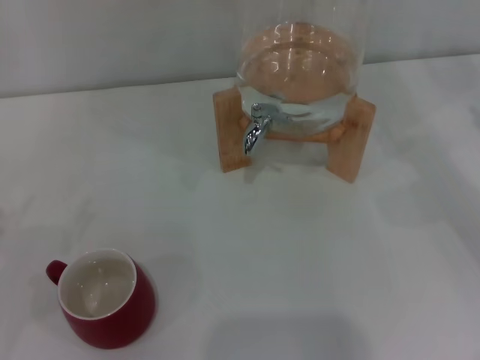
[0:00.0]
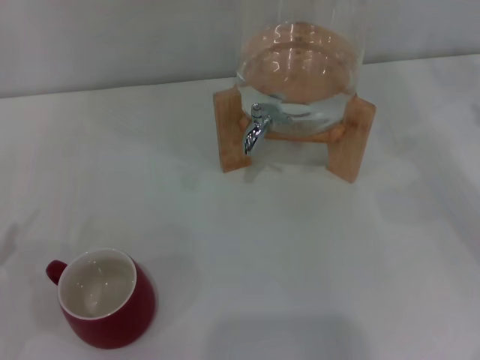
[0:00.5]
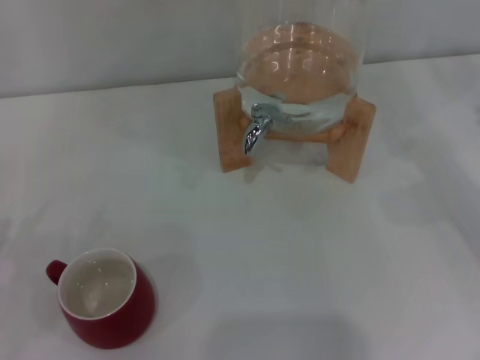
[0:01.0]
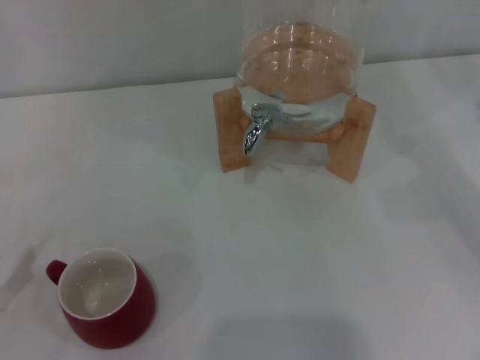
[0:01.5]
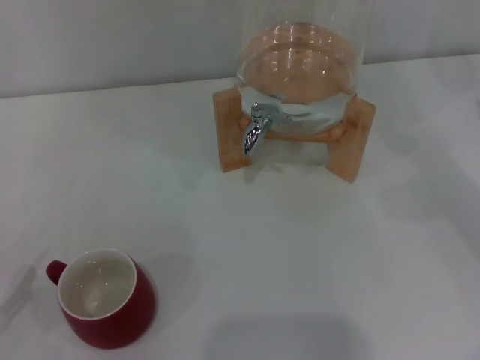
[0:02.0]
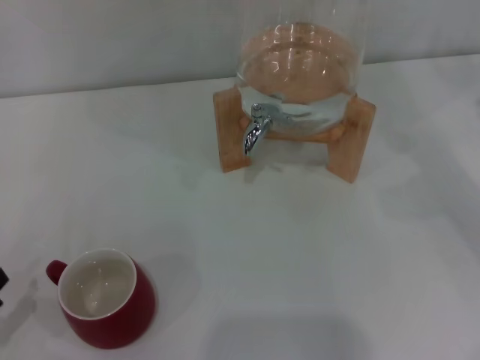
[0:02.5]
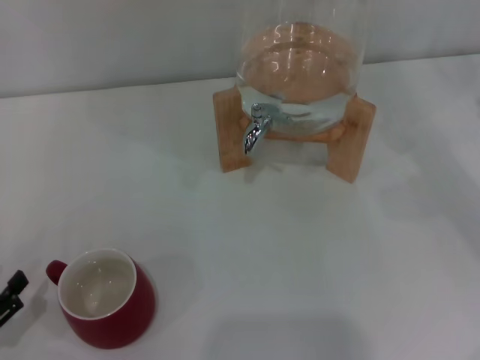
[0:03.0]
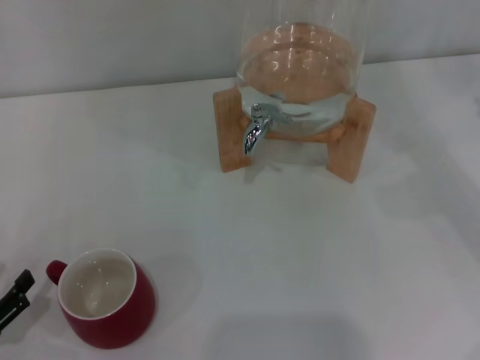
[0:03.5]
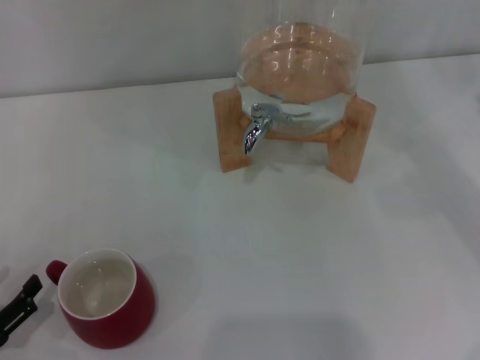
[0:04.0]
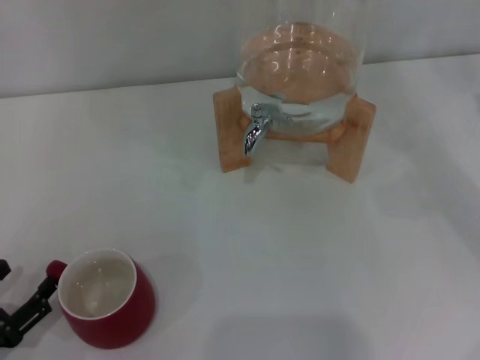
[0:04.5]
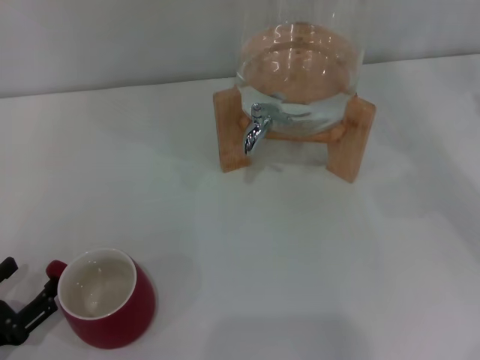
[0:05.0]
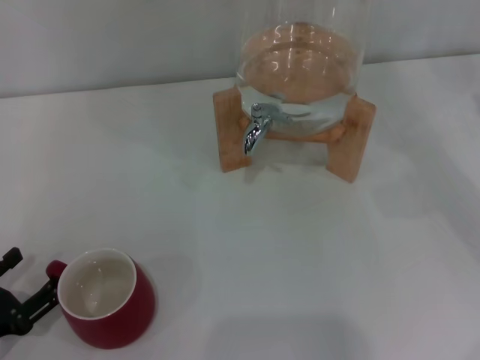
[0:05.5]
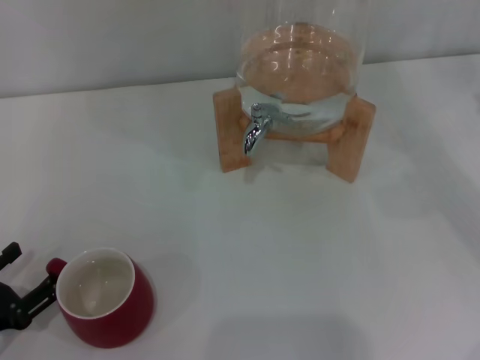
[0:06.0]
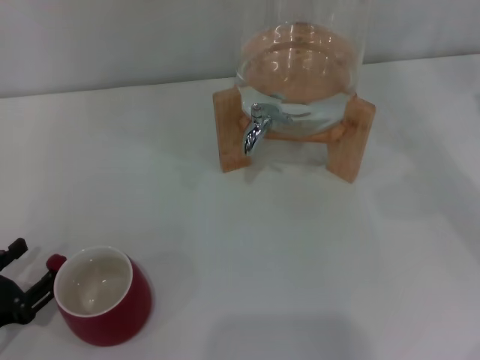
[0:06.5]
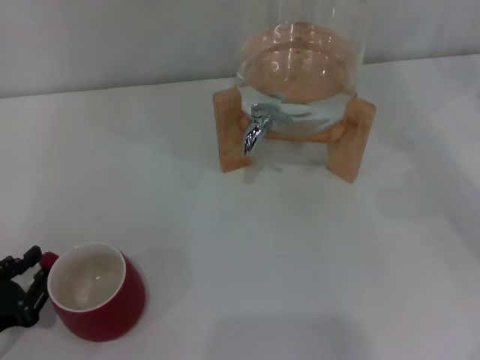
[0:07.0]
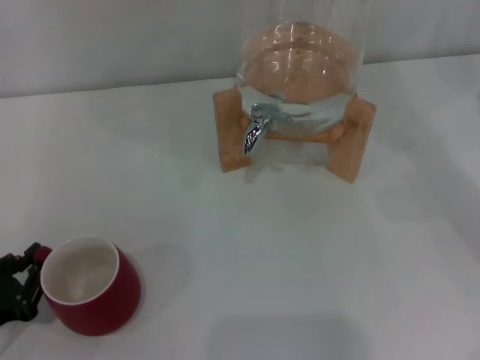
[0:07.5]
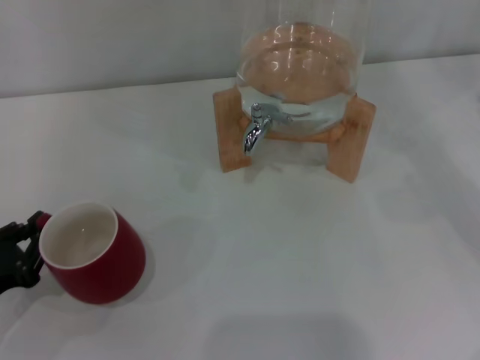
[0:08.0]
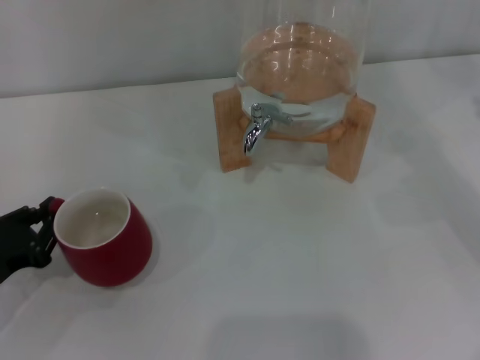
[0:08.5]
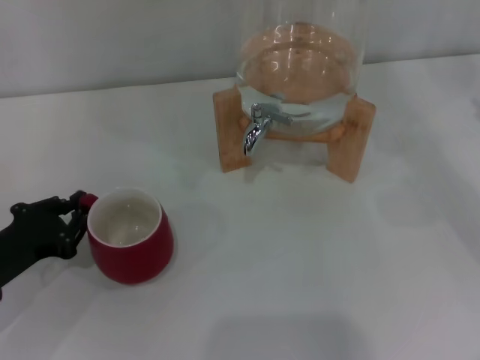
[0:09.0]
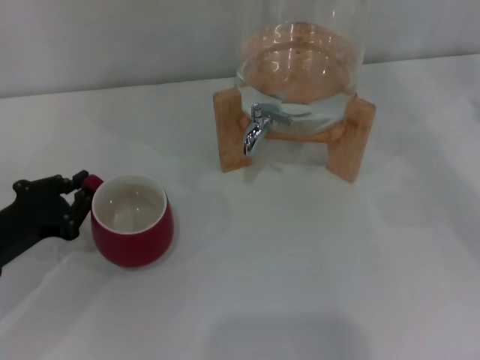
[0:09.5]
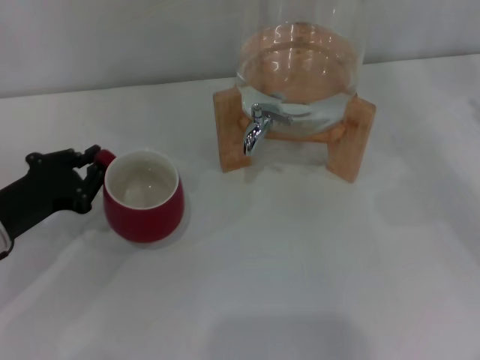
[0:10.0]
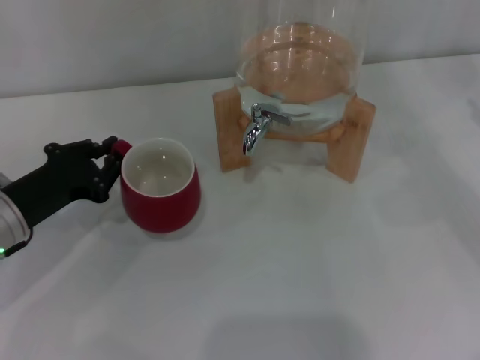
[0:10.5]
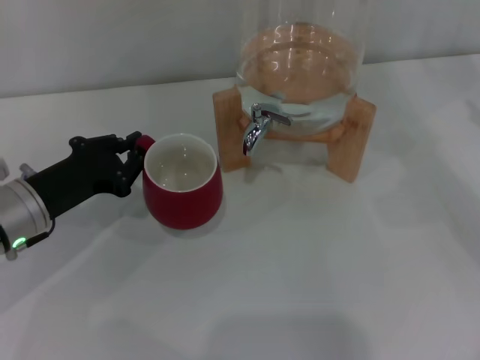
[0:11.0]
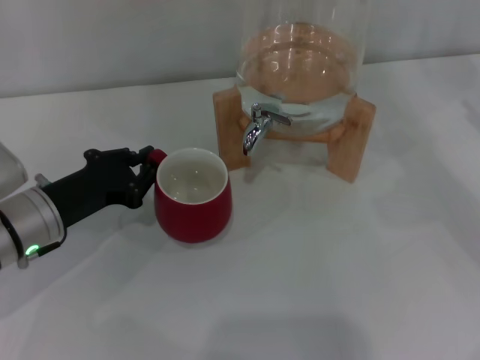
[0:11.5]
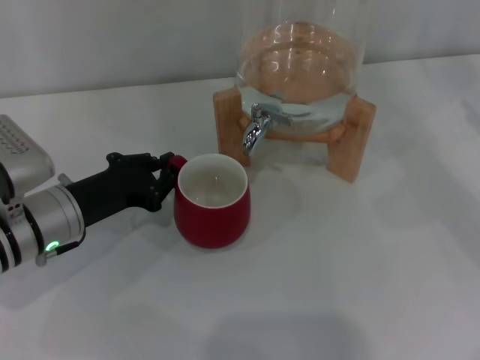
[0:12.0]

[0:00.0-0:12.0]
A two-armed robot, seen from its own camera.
Task of the whole recording: the left gripper pick up the red cup and place it horizontally under the faucet, the right gripper turn on the faucet to fill the cup, and then turn off the faucet.
0:02.0 to 0:06.0: There are only small adjustments of the grippers.
0:06.0 to 0:08.0: The left gripper closes its fingers.
0:08.0 to 0:10.0: The left gripper heads forward and to the right, covering some 10 cm.
0:10.0 to 0:12.0: The left gripper shifts some 5 cm to the right.

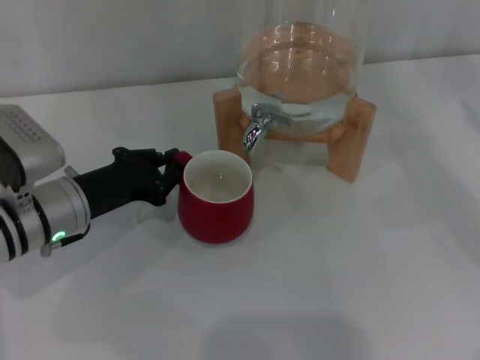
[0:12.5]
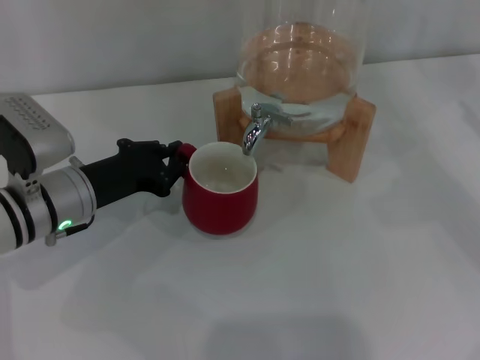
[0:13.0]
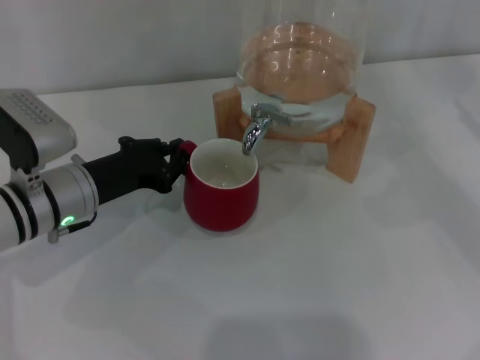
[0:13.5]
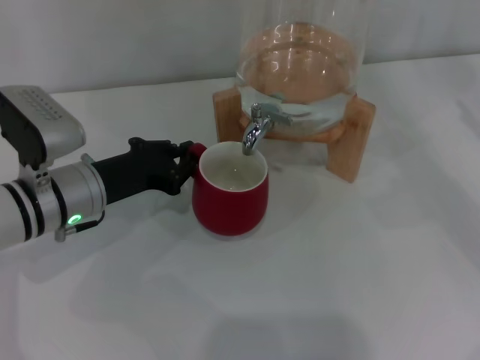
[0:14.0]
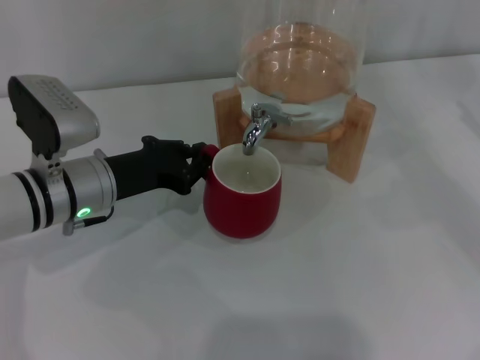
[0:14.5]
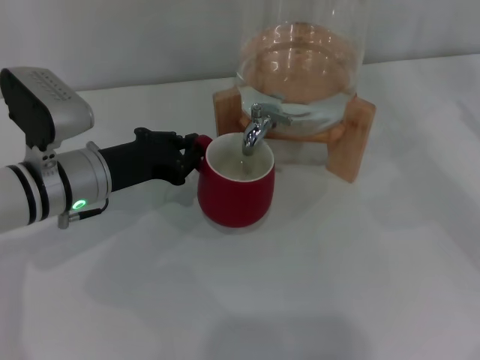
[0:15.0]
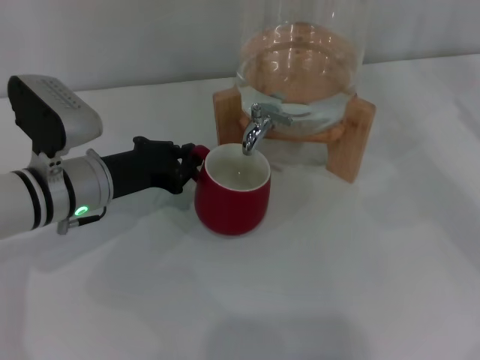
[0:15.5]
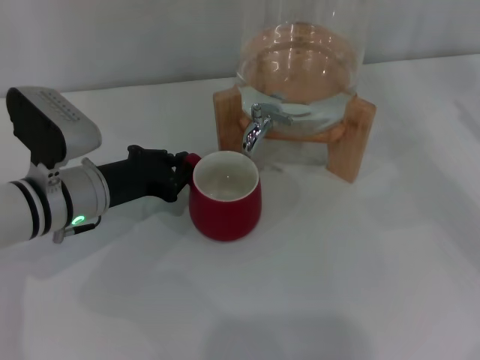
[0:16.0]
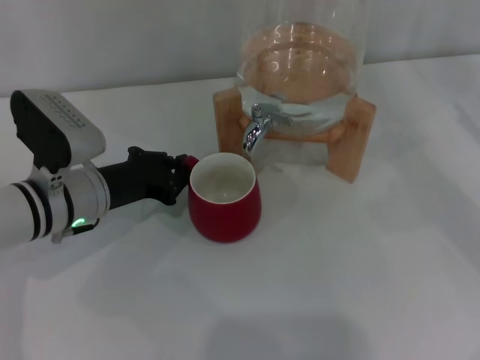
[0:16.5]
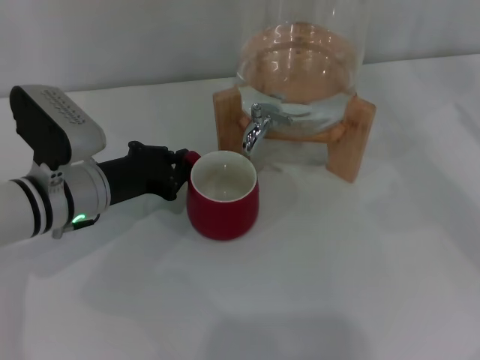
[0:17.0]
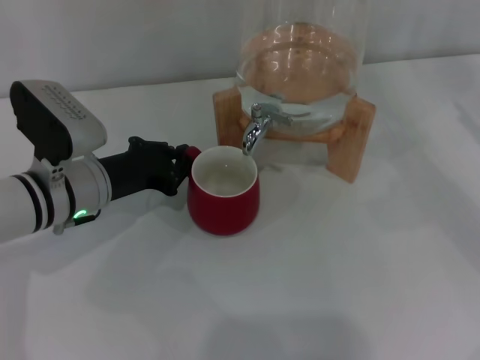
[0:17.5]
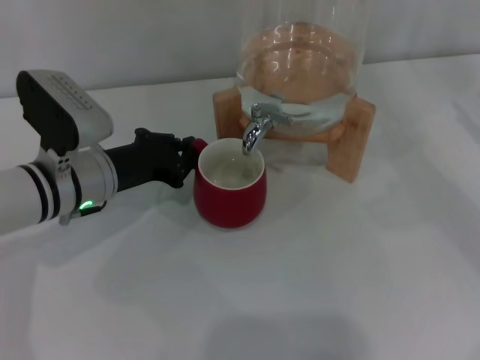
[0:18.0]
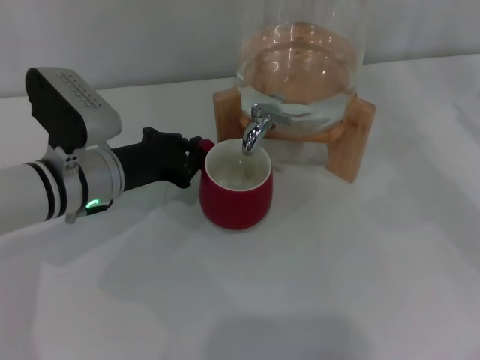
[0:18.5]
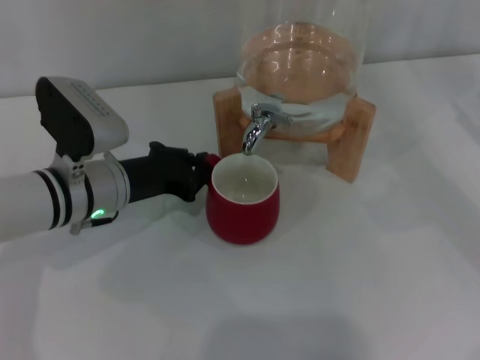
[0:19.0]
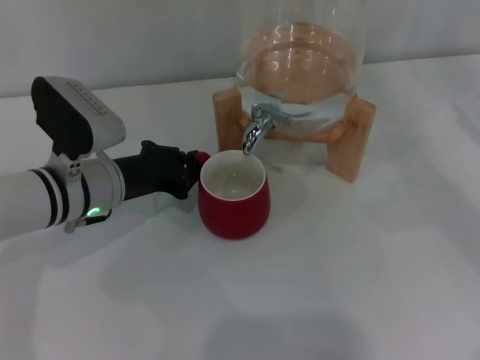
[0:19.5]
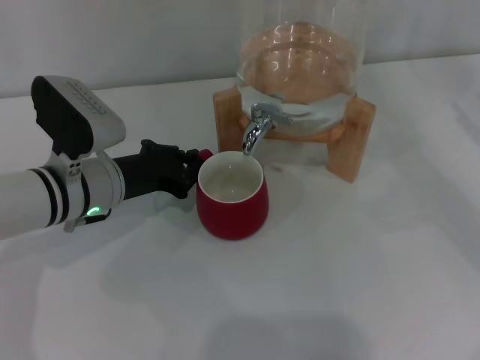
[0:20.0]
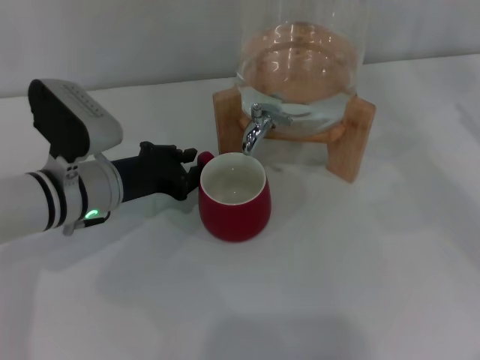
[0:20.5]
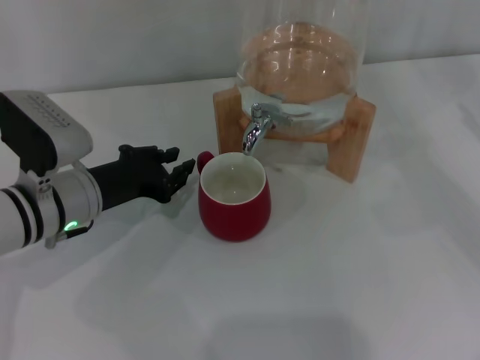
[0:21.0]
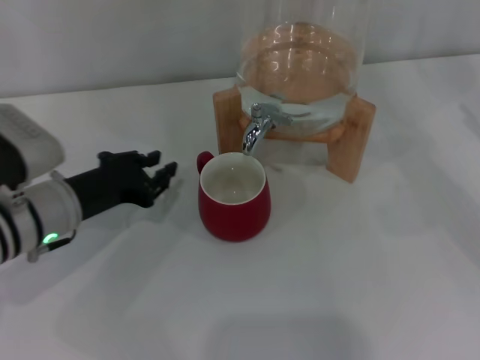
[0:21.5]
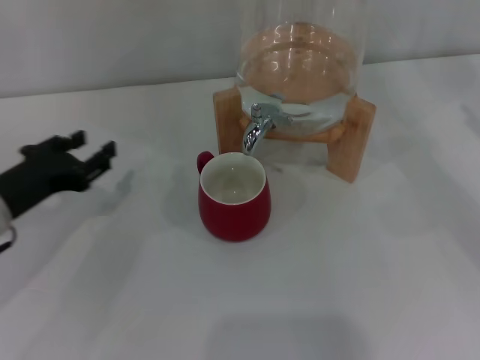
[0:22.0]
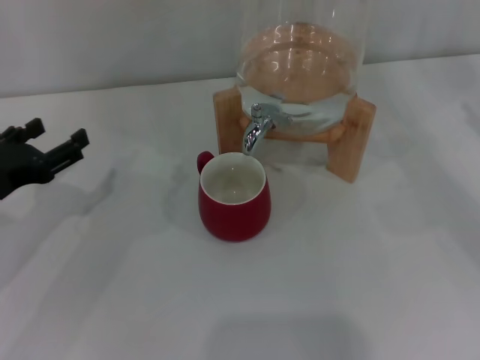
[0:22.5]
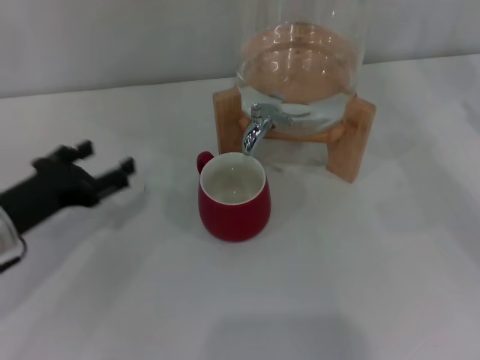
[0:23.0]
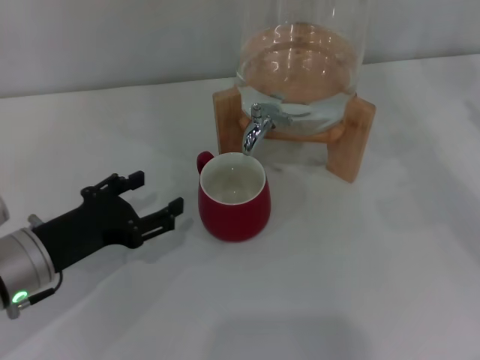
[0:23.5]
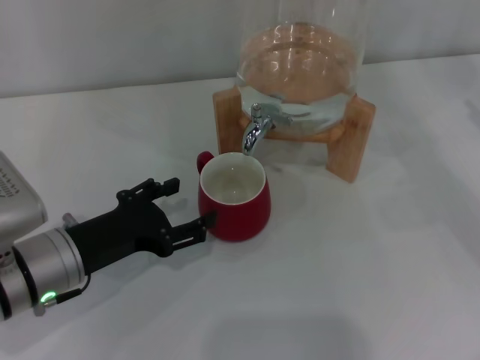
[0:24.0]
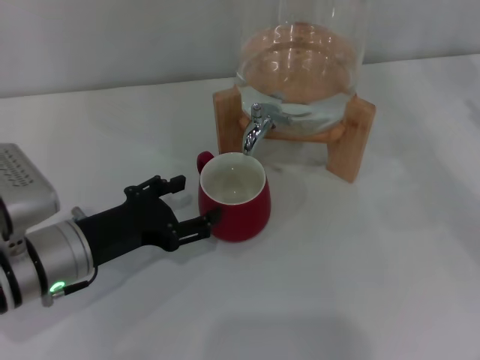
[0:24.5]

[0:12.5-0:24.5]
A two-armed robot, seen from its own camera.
Task of the whole recording: the left gripper pick up the red cup and place it horizontally under the faucet, the right gripper turn on the faucet to fill the cup, and then turn off the faucet.
Step, 0:12.5 to 0:21.0: Move the cup beneath the water dispenser nozzle with the left gripper.
0:12.5 to 0:18.5: The grippers stay close to where they were, moving slightly.
0:18.5 to 0:20.5: Both grippers stay about where they are.
0:20.5 to 0:22.5: The left gripper travels to the left and backward by some 15 cm, and opens.
0:22.5 to 0:24.5: The left gripper travels to the right by approximately 10 cm.

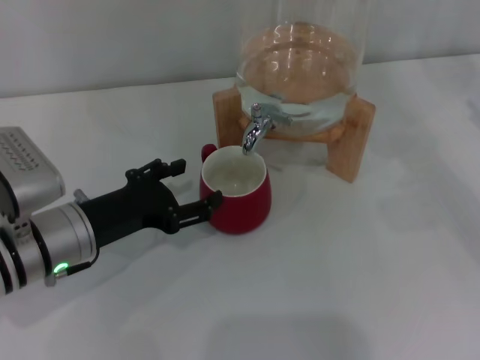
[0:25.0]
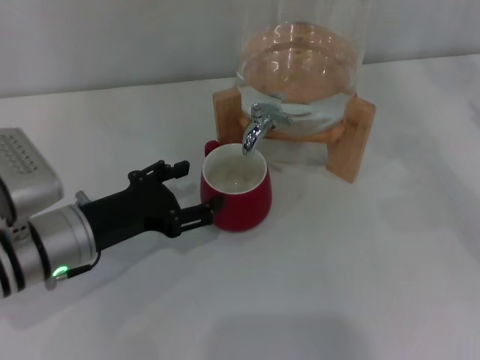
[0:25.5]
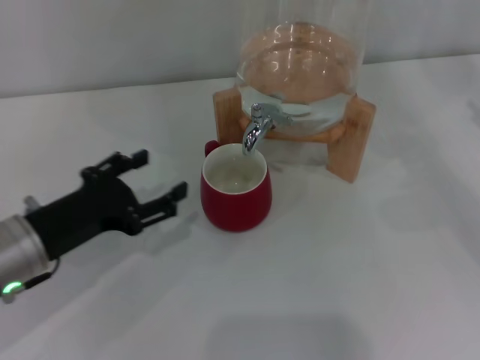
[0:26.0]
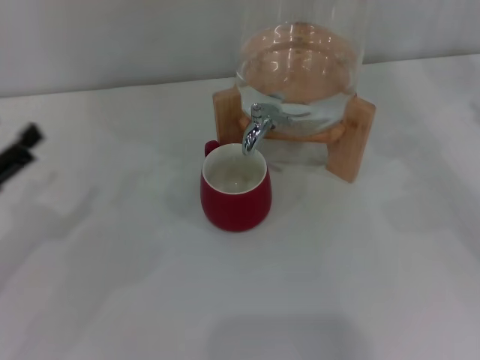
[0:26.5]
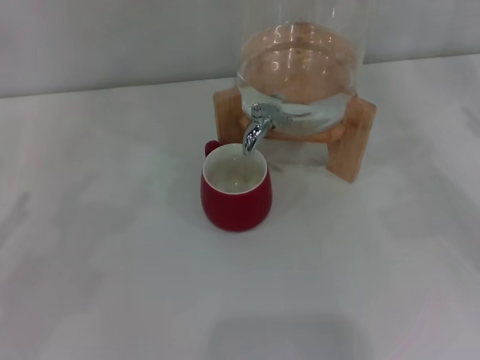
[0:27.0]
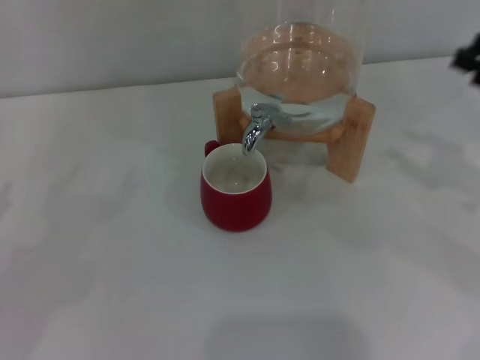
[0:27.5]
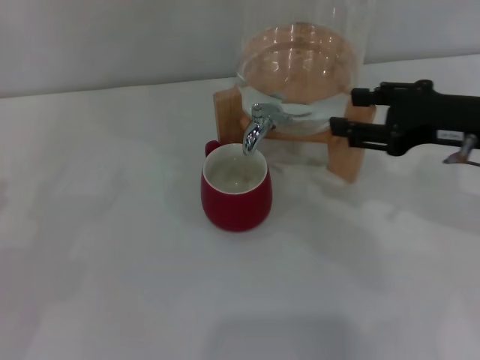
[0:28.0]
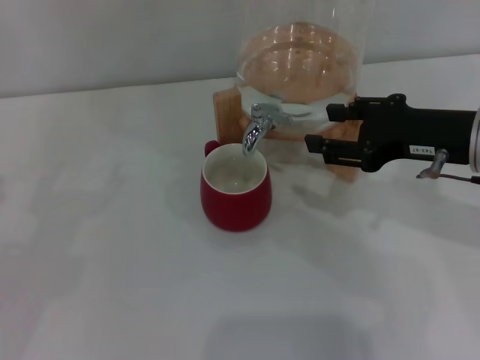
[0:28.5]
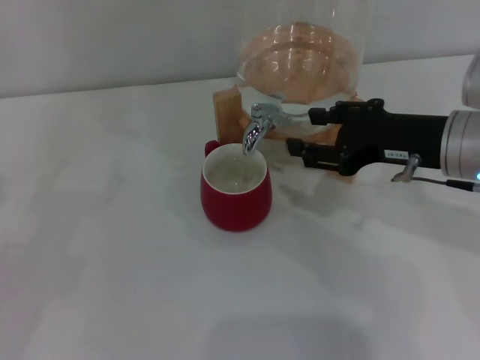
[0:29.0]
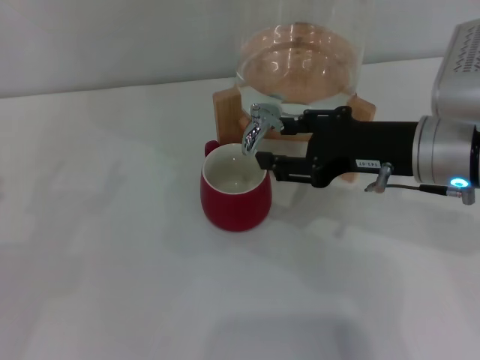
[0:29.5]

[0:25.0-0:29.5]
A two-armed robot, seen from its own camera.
Task of the whole recording: the left gripper pick up the red cup and place it horizontally under the faucet, the right gripper turn on the faucet to fill the cup, and then turn off the faucet.
0:25.0 to 0:27.0: The left gripper moves to the left, approximately 20 cm.
0:27.0 to 0:29.5: The right gripper moves to the left, some 20 cm.